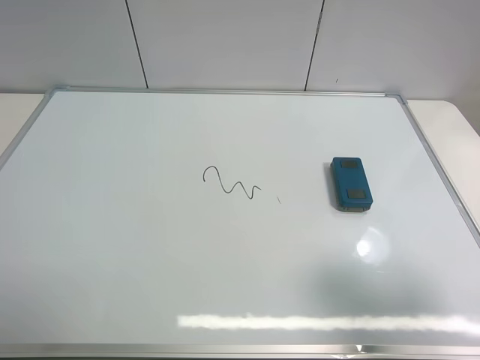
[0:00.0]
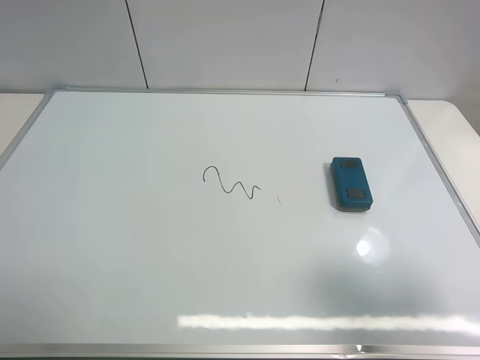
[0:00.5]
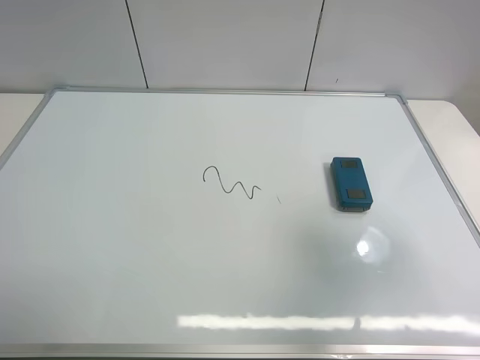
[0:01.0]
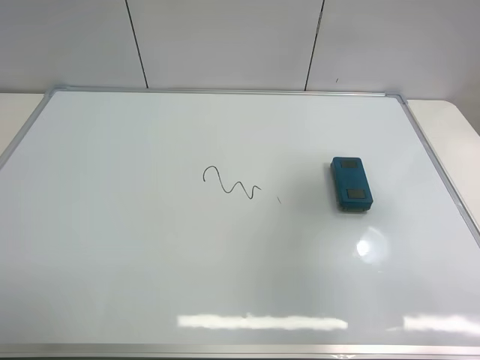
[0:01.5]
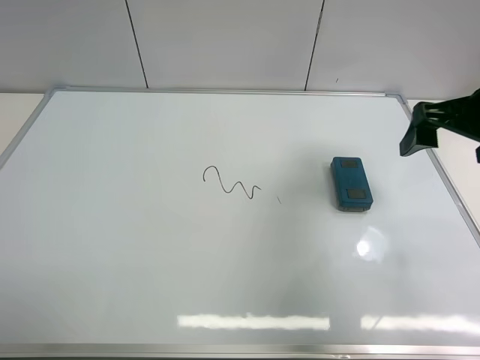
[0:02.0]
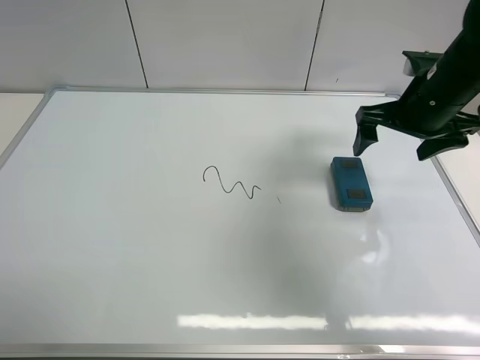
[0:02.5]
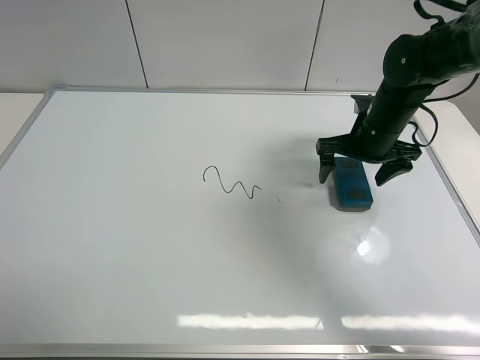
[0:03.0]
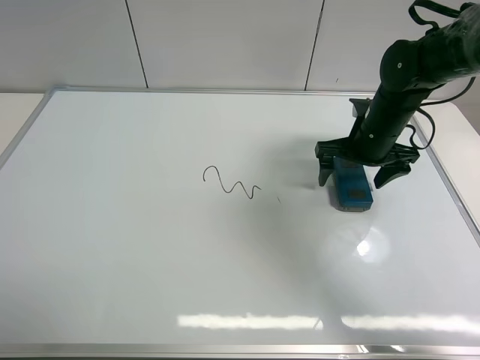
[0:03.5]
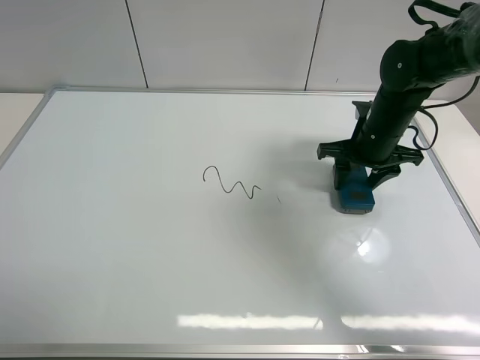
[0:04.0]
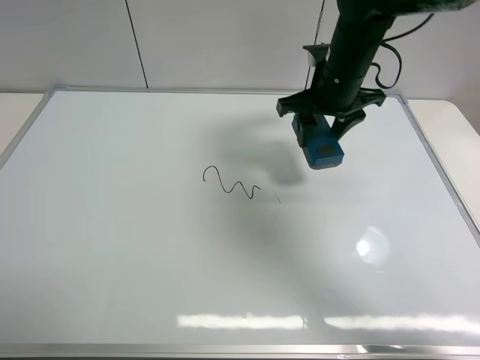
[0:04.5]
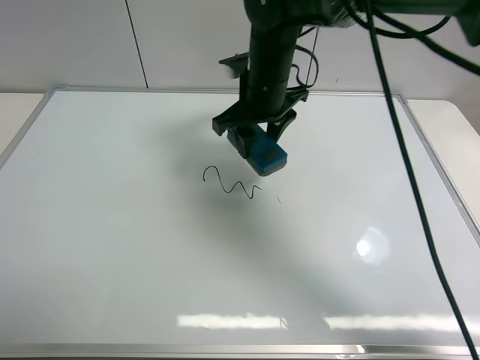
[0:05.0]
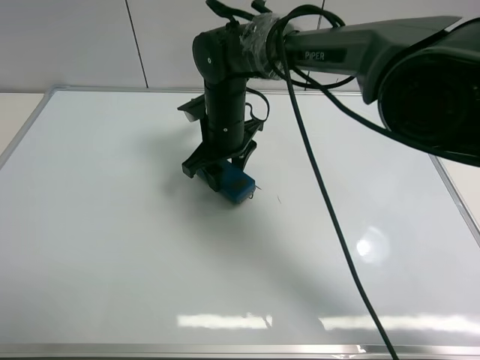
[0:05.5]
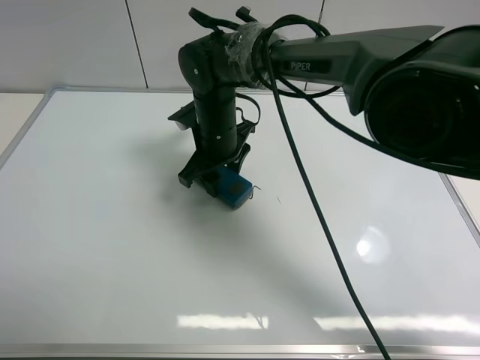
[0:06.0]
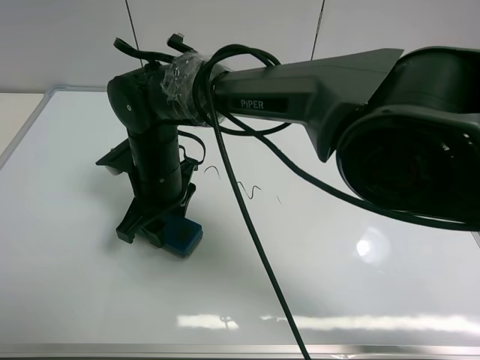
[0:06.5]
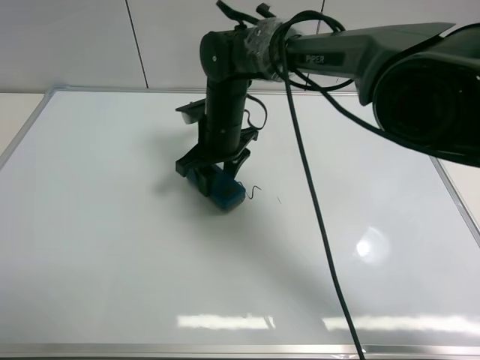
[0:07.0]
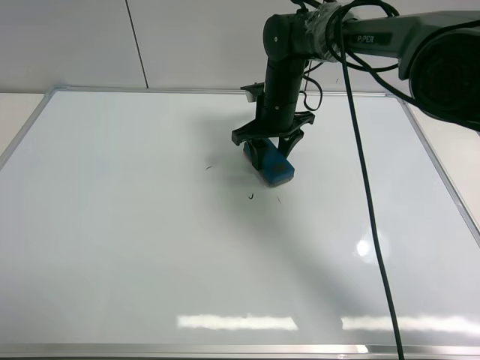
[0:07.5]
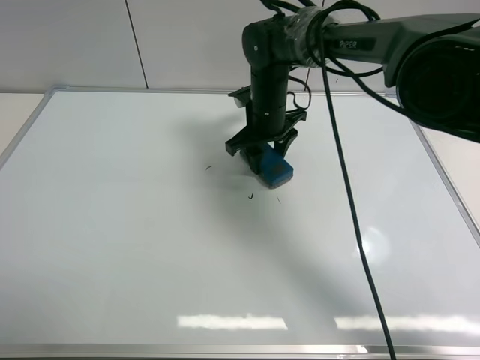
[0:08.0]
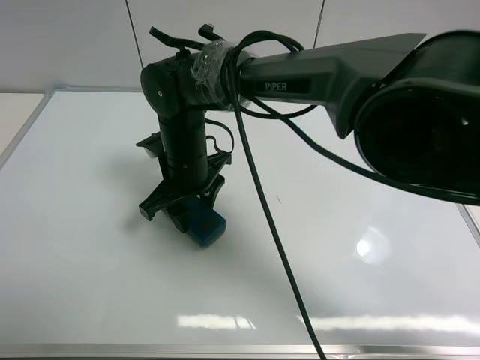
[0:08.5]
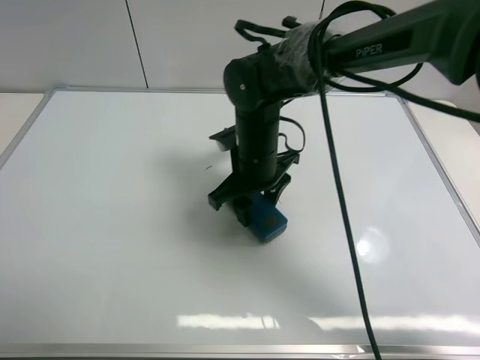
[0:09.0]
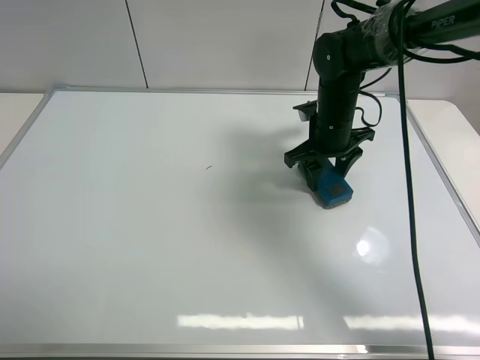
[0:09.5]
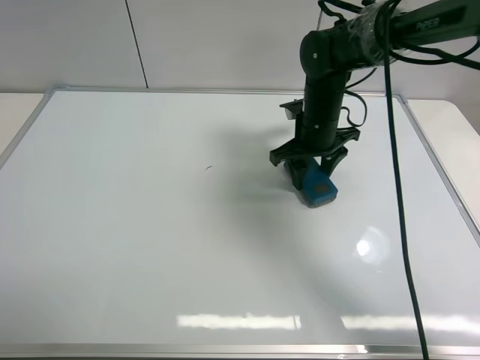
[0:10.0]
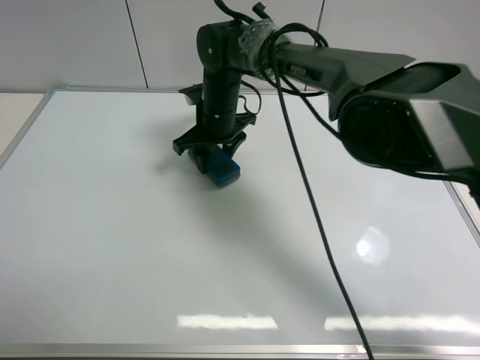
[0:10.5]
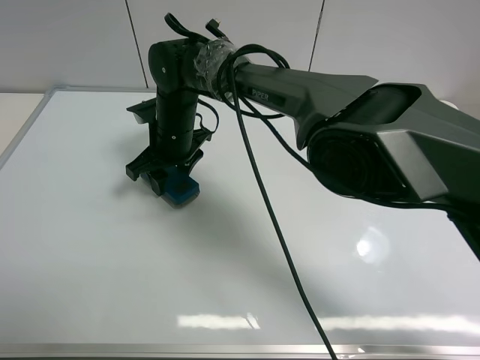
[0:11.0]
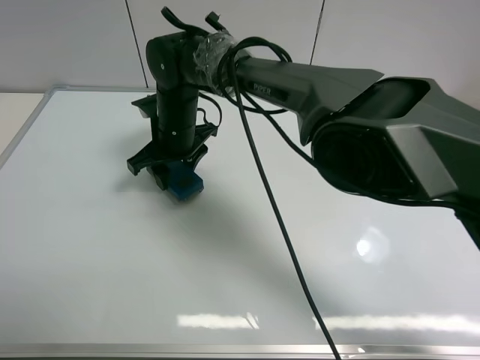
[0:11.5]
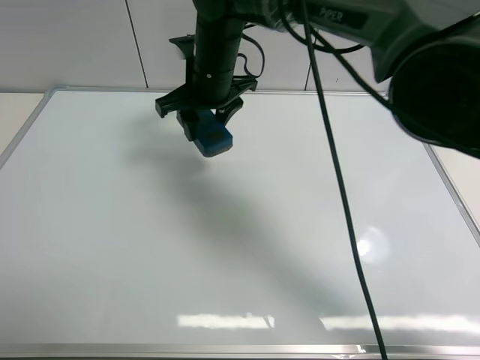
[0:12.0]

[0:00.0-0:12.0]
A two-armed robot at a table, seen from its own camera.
Task of the whole recording: use the right gripper to pick up the board eraser, wipe the notes on the whiteboard clean, and then put them back in place.
Step, 0:00.0 to 0:04.0: Pick up the board eraser with right gripper.
Step, 0:04.5 to 0:11.0: Wipe off the writing on the board with right gripper.
0:00.0 to 0:02.0: The right gripper goes approximately 25 cm forward.
0:02.0 to 0:04.0: The right gripper heads downward, forward and to the left, covering approximately 15 cm, and closes.
0:04.0 to 0:06.0: The right gripper shifts about 25 cm to the left.
0:06.0 to 0:08.0: The right gripper travels to the right and forward by about 10 cm.
0:08.0 to 0:10.0: The right gripper is displaced to the right by approximately 10 cm.
0:10.0 to 0:12.0: The right gripper moves to the left and upward, approximately 15 cm.

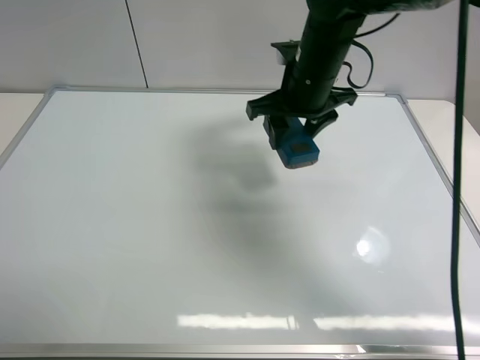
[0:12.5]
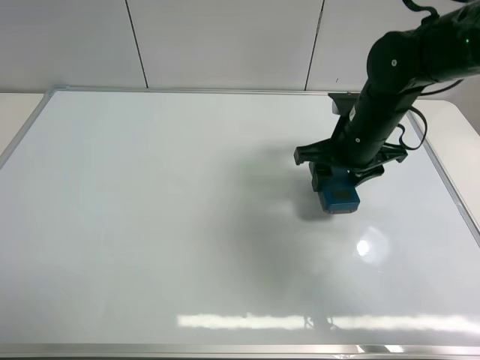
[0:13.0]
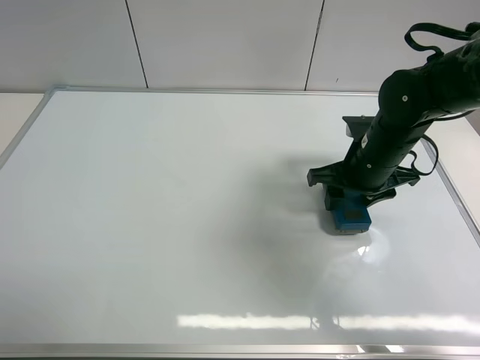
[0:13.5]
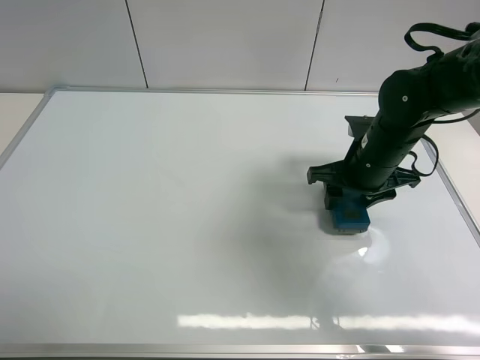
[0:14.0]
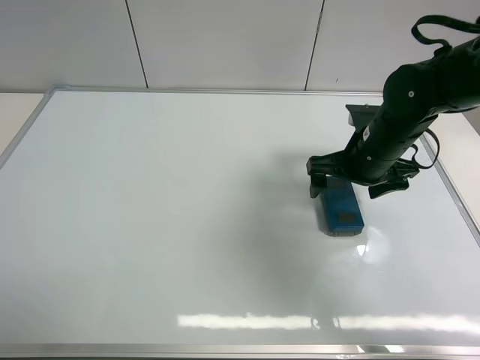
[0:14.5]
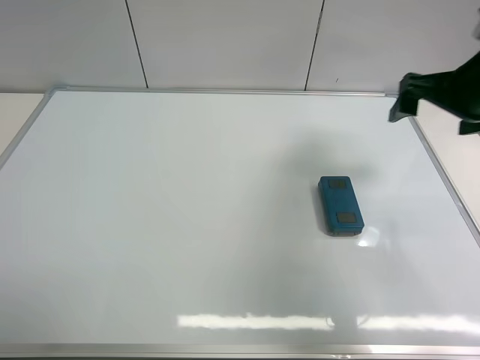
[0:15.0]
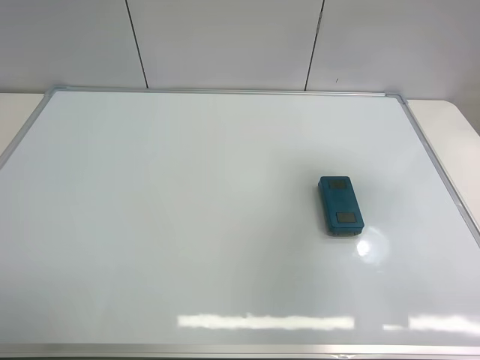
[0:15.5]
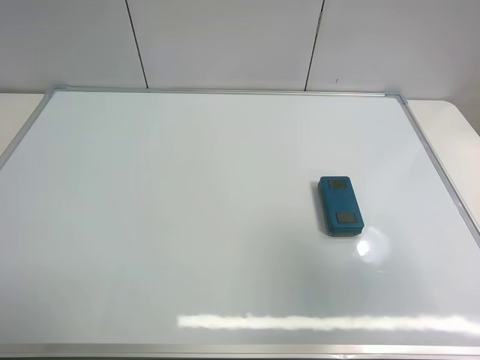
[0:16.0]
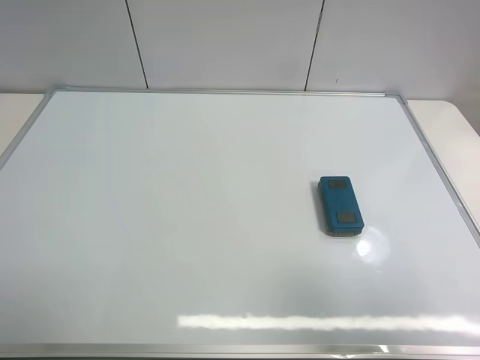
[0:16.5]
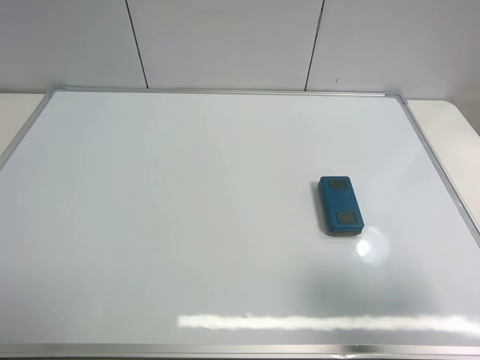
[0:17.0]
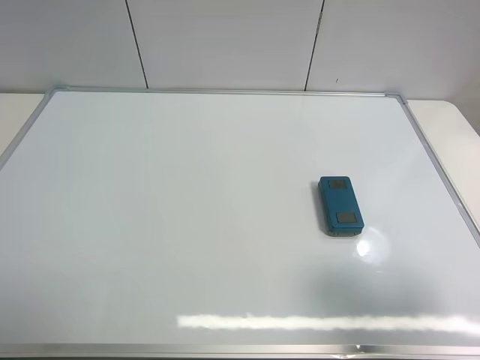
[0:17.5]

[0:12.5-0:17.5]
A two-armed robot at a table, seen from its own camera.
Task of the whole recording: use the right gripper to pick up the board eraser, wipe the notes on the whiteboard clean, and then put them back in place.
Step, 0:12.5 to 0:14.0: Place the board eraser on the right side of board with right gripper.
0:12.5 to 0:15.0: The right gripper shifts about 20 cm to the right, and opens up.
0:15.0 to 0:17.5: The right gripper travels backward by about 30 cm.
